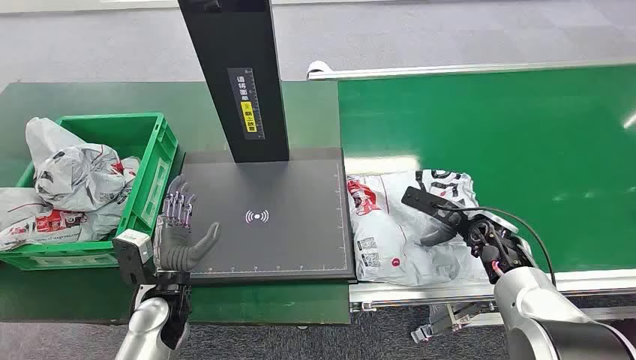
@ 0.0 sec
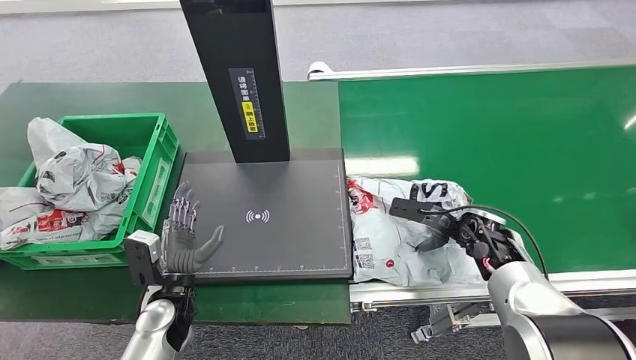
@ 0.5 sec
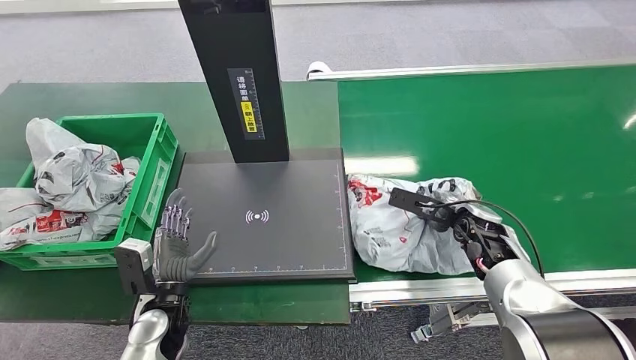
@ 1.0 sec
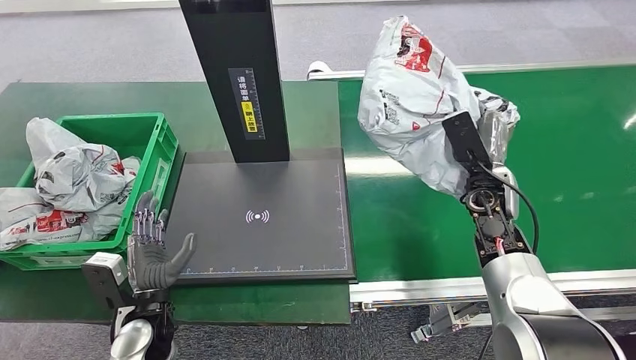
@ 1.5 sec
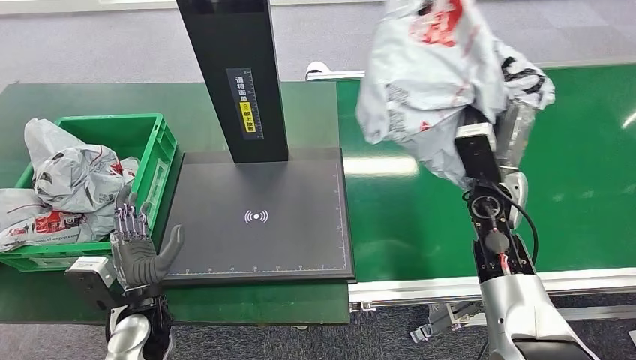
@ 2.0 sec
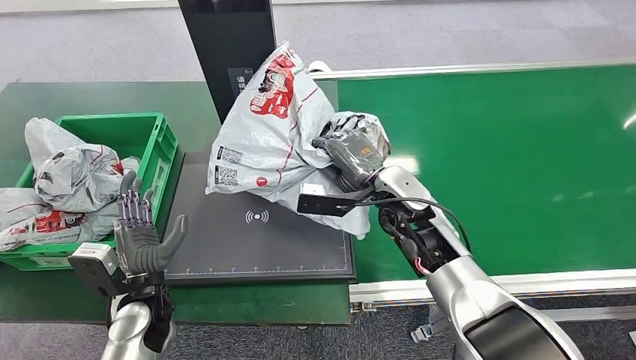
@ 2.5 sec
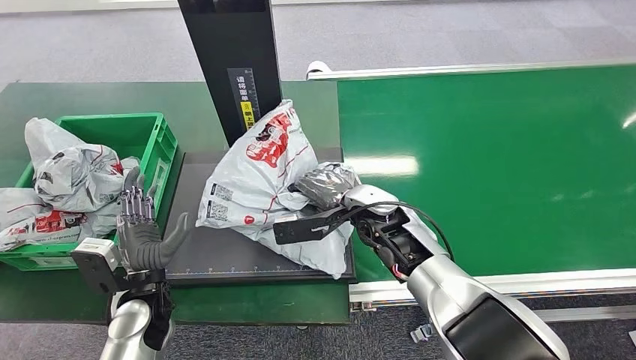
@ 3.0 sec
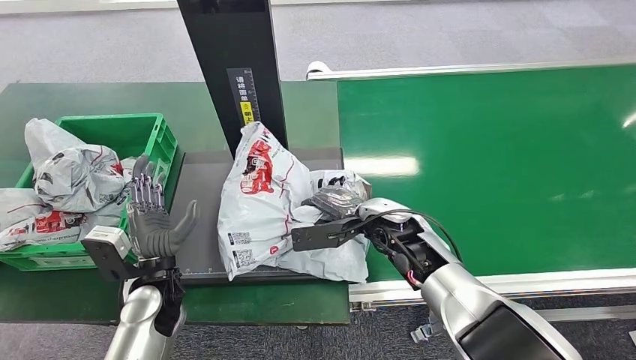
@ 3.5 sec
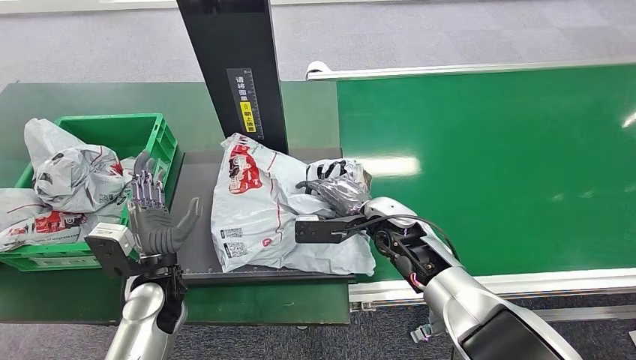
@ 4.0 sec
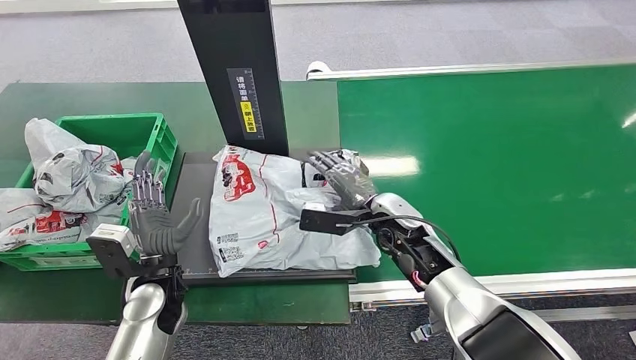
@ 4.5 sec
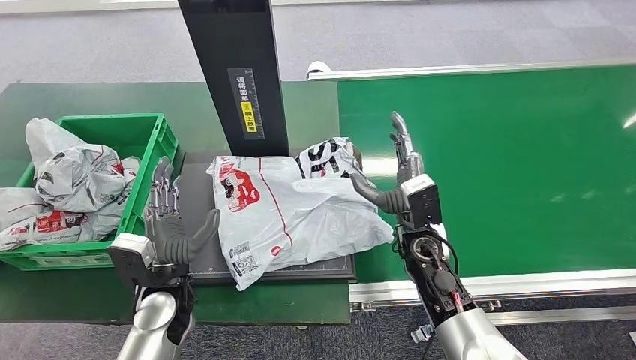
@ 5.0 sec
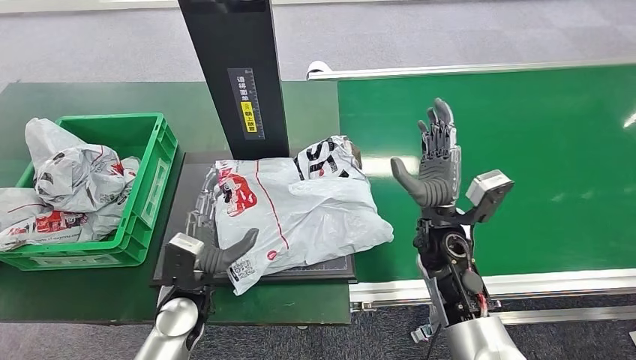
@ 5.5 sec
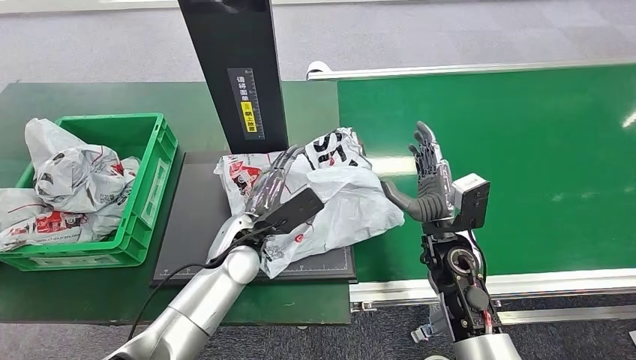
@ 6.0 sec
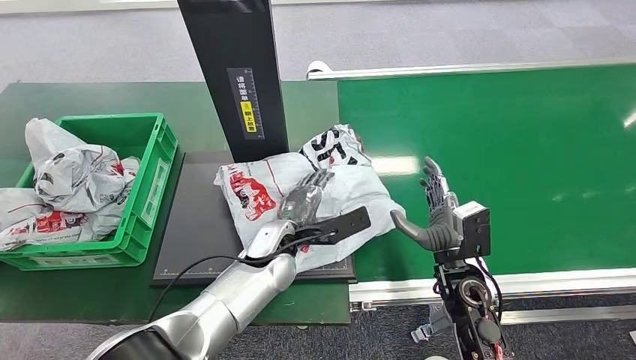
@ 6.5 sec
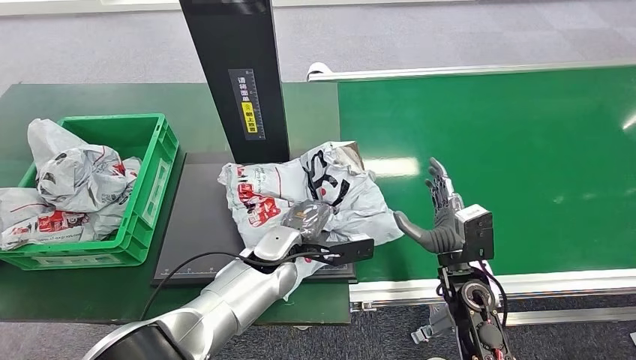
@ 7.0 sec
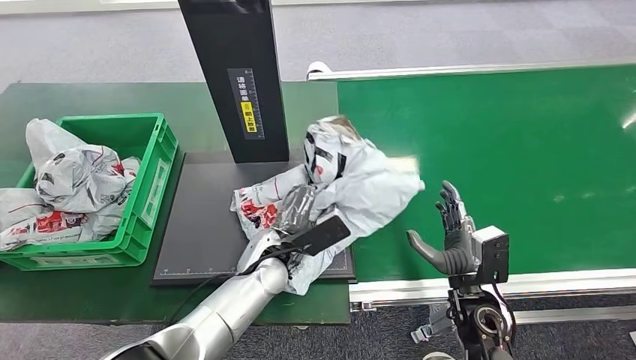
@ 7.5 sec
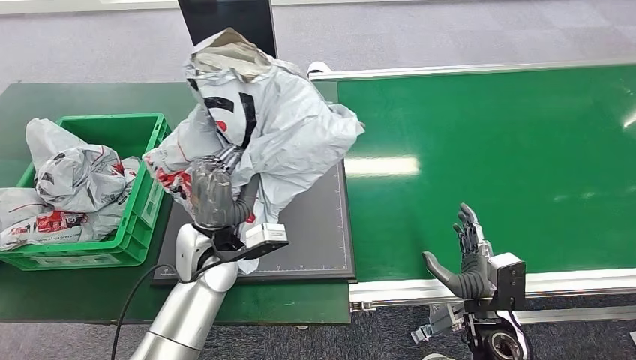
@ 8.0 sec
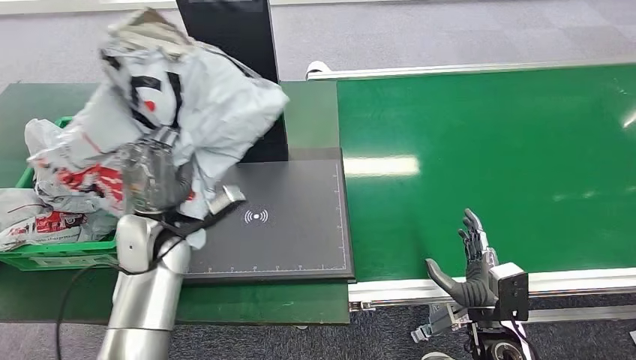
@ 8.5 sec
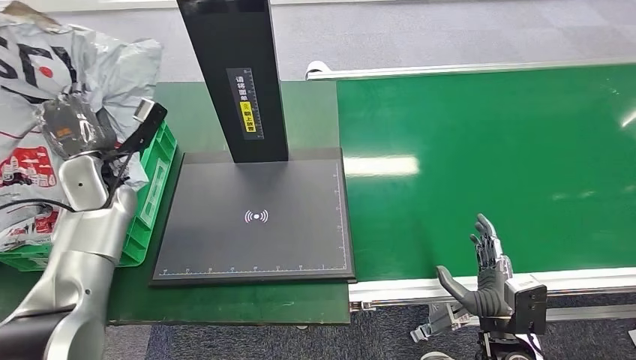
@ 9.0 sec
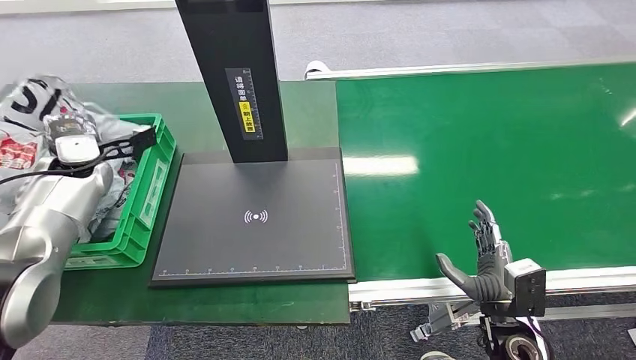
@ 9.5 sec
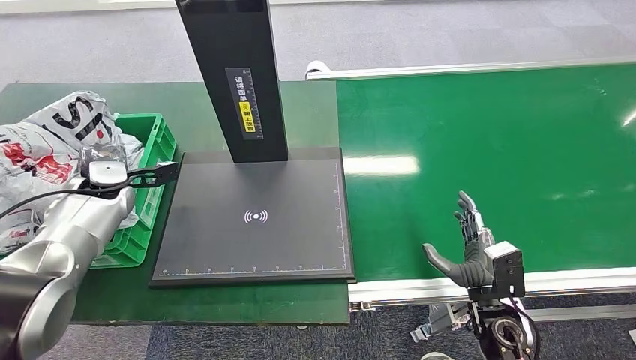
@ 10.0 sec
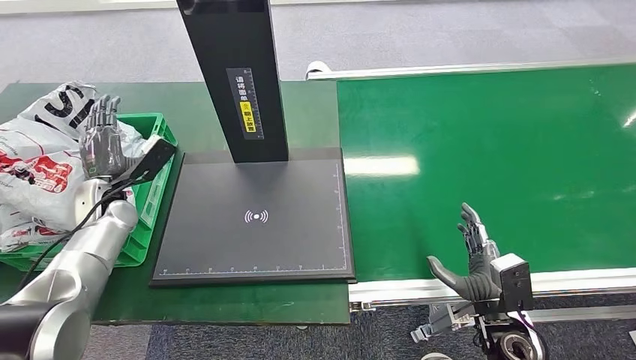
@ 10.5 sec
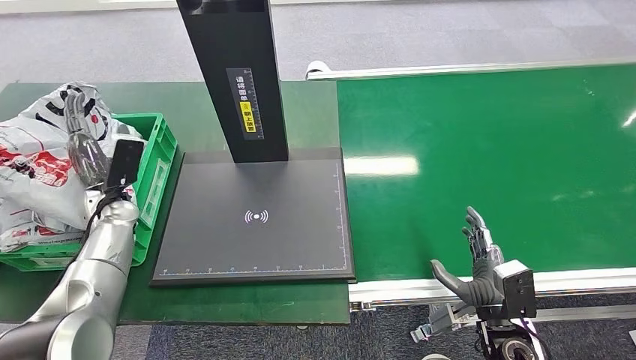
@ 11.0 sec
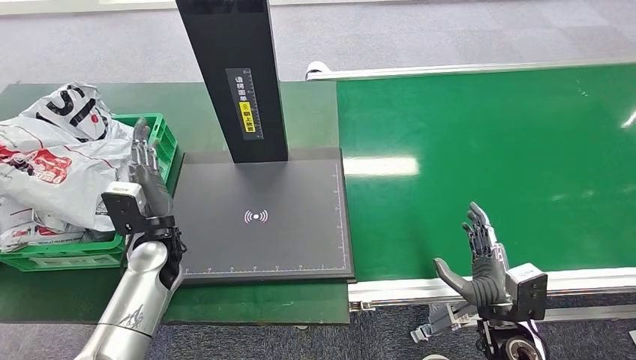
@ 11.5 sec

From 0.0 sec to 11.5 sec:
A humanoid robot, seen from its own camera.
Task of the whole recording: Weigh the package on the weighing device and place it in the left basket.
Step, from 0.0 sec to 1.5 sec: Pick up the package from the conveyor belt.
Step, from 2.0 sec to 3.0 sec: Place the package onto the inbound machine.
Step, from 3.5 sec to 8.5 sec: Pick up the package from the inbound machine.
Step, from 9.0 sec to 11.5 sec: Place the package into the parcel locker.
From 6.0 sec to 7.5 sec: The left hand moves approximately 5 cm. The right hand travels backward and downward by some 10 cm.
From 9.5 sec to 11.5 sec: The left hand travels to the right, downward and backward by roughly 20 cm.
